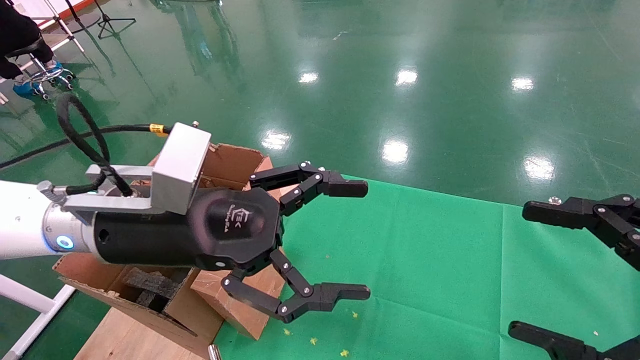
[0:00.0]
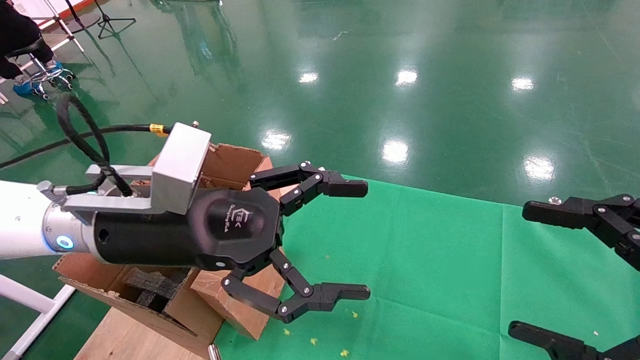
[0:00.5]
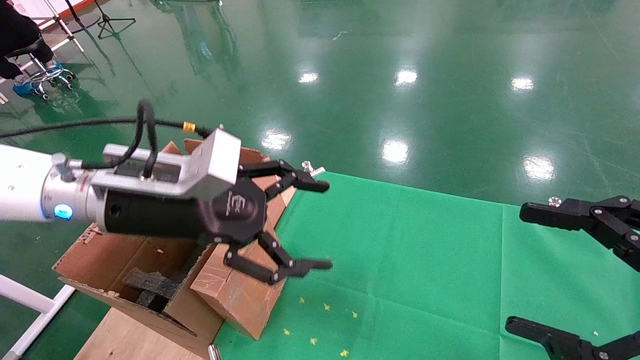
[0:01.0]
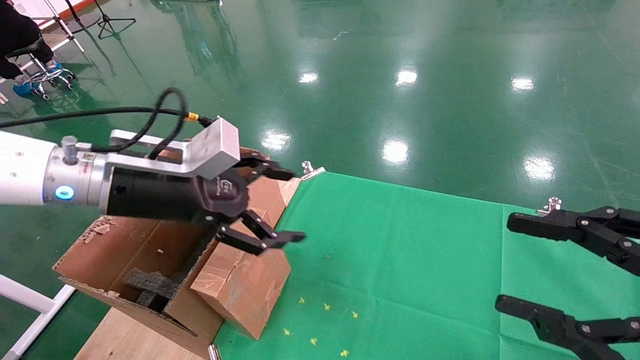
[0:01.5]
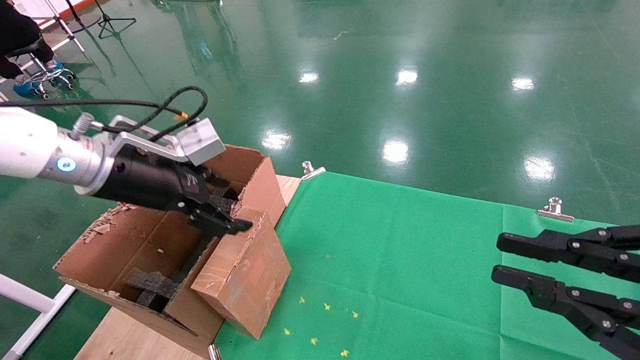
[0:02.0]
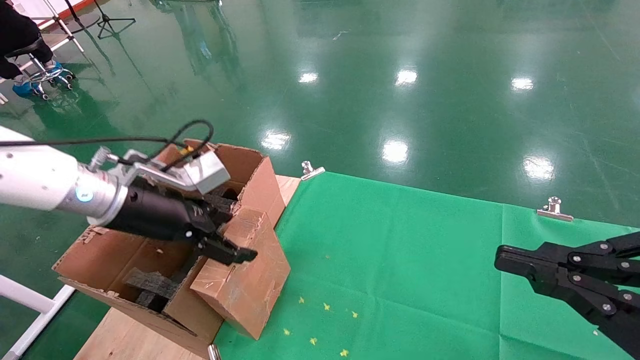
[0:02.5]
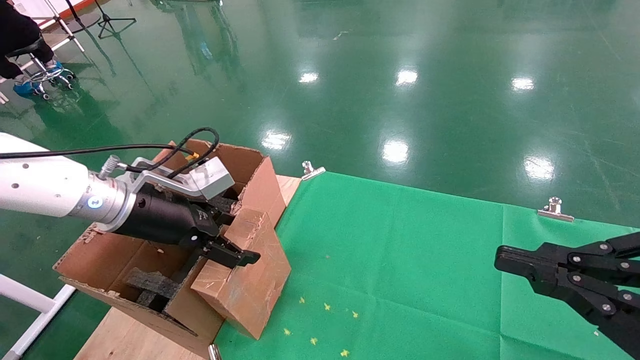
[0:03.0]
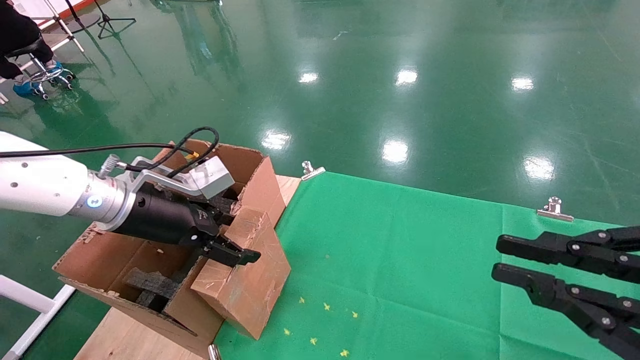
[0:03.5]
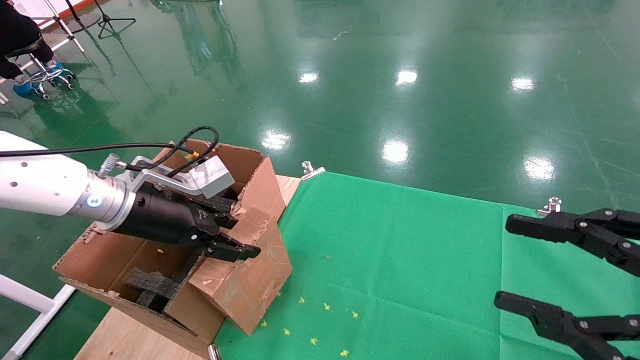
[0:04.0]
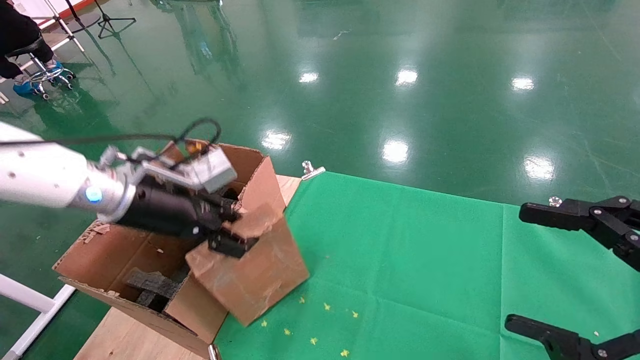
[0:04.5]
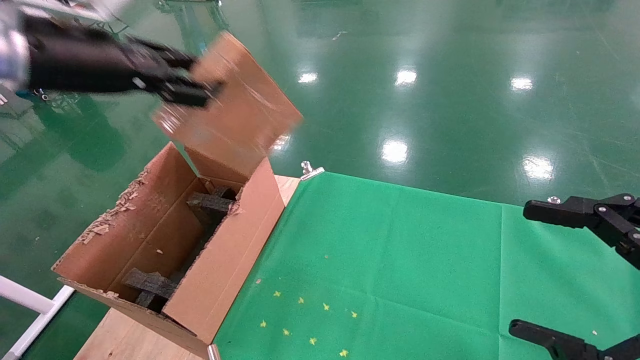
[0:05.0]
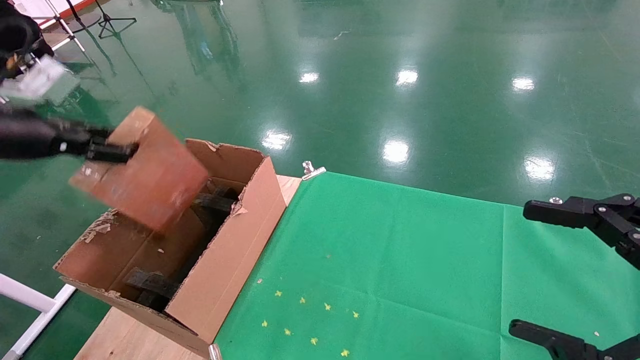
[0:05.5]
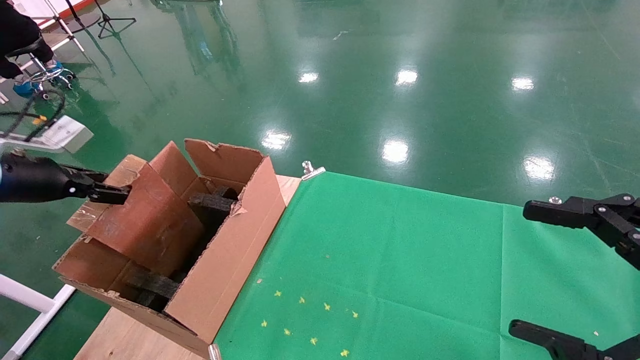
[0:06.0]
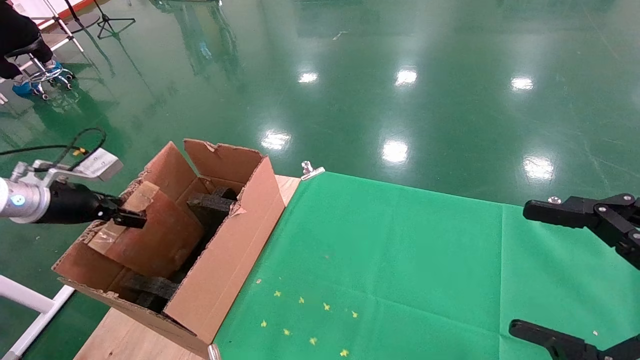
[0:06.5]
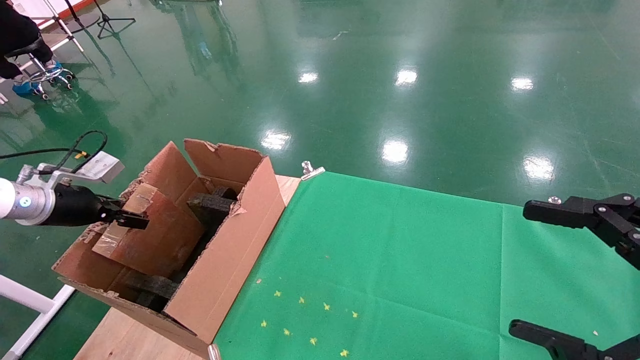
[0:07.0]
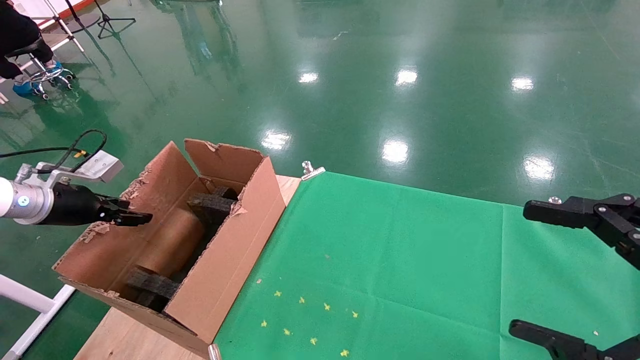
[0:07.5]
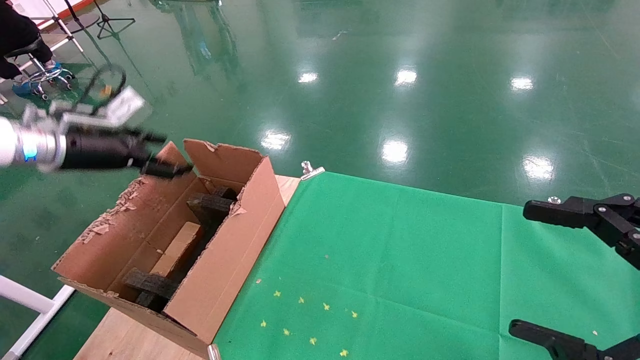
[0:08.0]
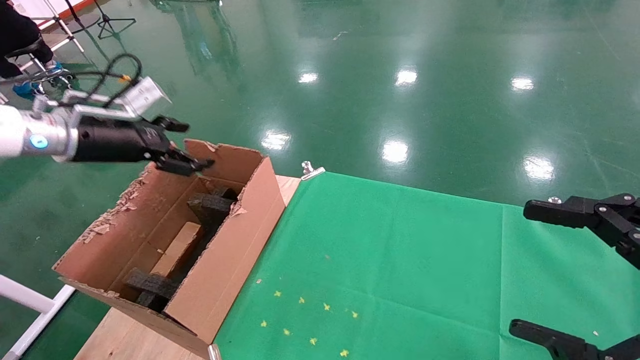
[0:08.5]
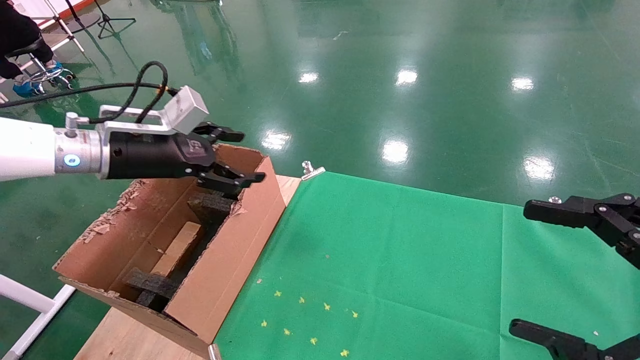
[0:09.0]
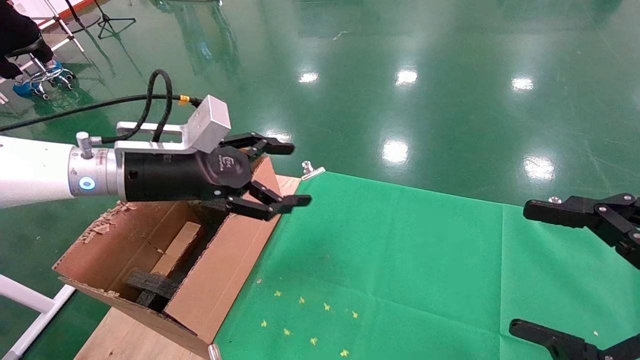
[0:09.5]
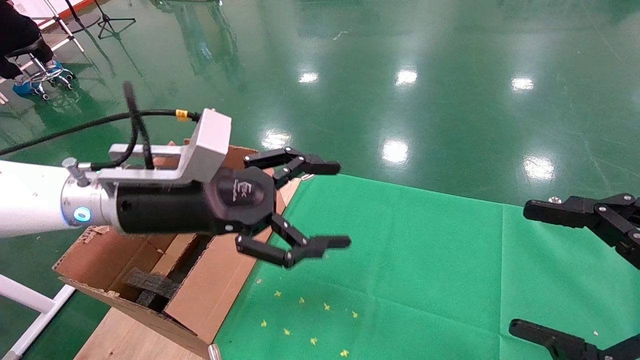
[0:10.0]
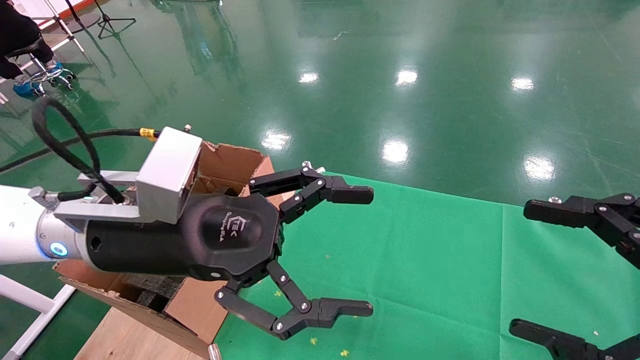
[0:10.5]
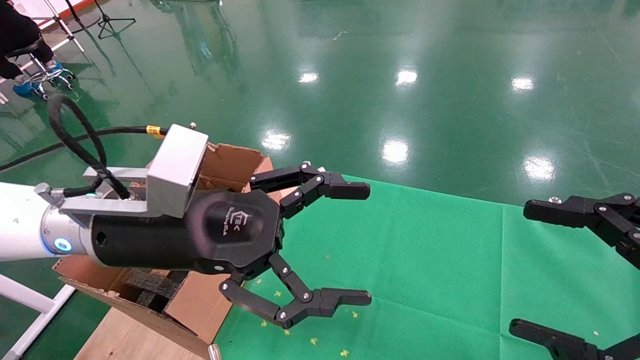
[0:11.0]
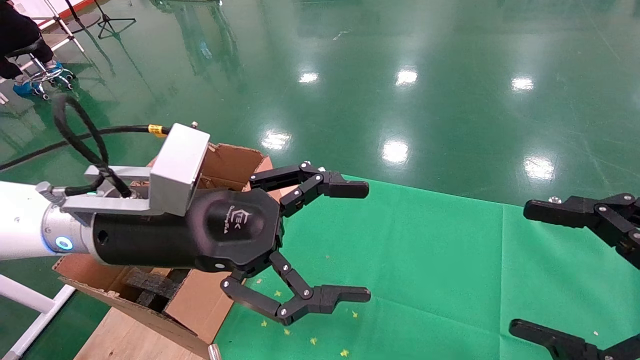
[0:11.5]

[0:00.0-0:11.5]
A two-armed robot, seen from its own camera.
Task of the whole recording: using a robotic arm to pick up a cardboard box and palace it the carton.
Step, 0:01.0 to 0:04.5: Pick up the mouse and the power cord paper box.
Step, 0:05.0 to 0:07.5: Place the mouse and the power cord paper box into the container.
0:00.0 to 0:02.0: The right gripper closes its fingers, while the left gripper moves to the left and forward, about 10 cm.
0:02.0 to 0:04.0: The left gripper moves about 5 cm, and closes.
0:04.0 to 0:06.0: The left gripper heads to the left, covering some 20 cm, and closes. Meanwhile the right gripper opens up.
0:06.0 to 0:07.5: The left gripper goes roughly 5 cm downward.
0:07.5 to 0:09.5: The left gripper heads to the right, covering approximately 25 cm, and opens up.
0:09.5 to 0:11.5: The left gripper shifts roughly 10 cm backward and to the right.

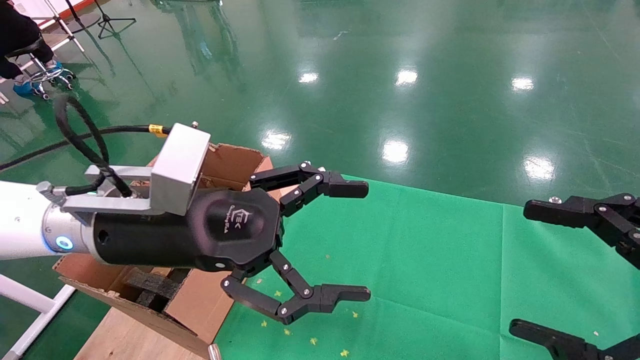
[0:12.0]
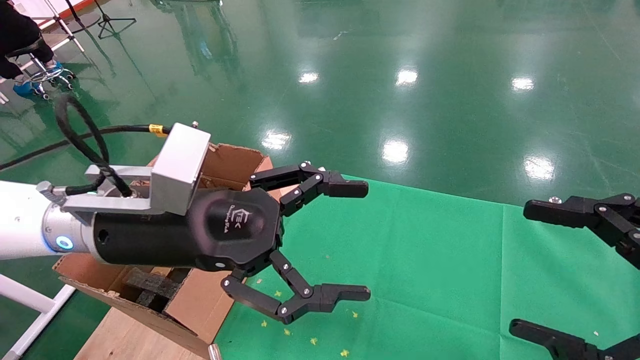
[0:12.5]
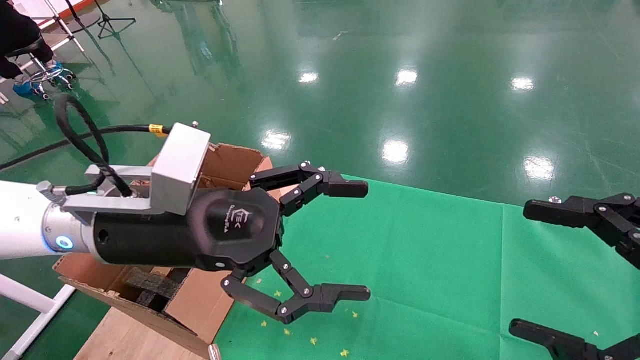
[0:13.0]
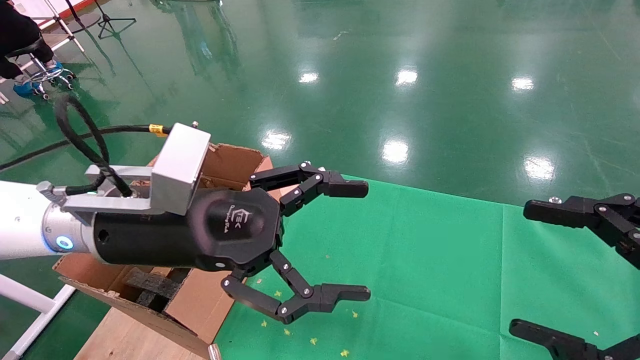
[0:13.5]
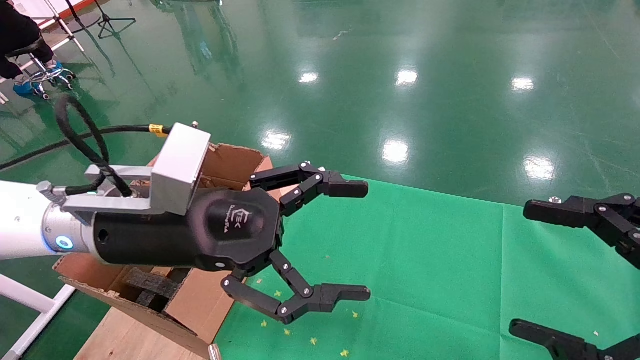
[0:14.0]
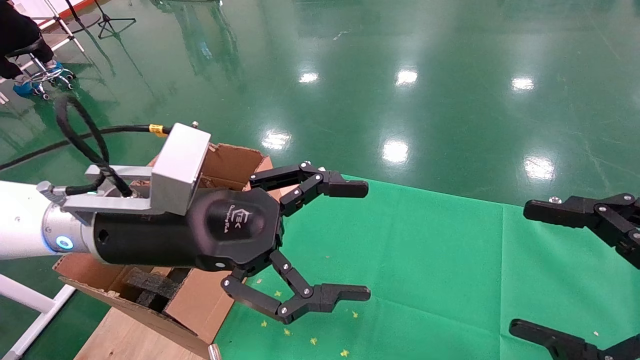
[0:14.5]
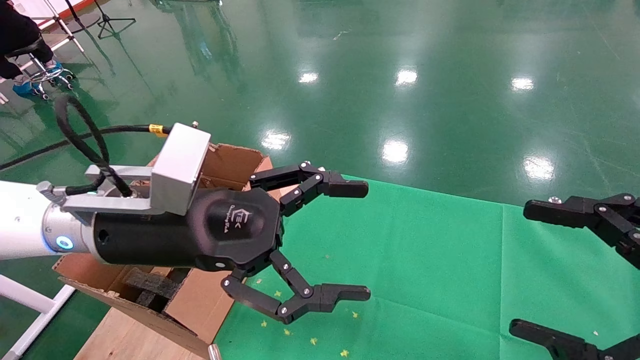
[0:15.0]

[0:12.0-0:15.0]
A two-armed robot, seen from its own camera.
Task of the whole recording: using a robotic arm to pick up a cardboard box and palace it the carton.
0:12.0 to 0:15.0: Both grippers stay about where they are.

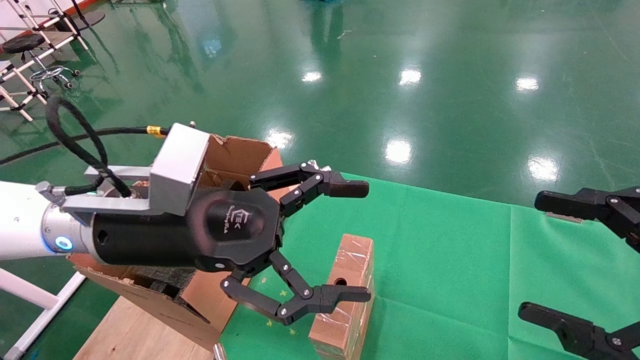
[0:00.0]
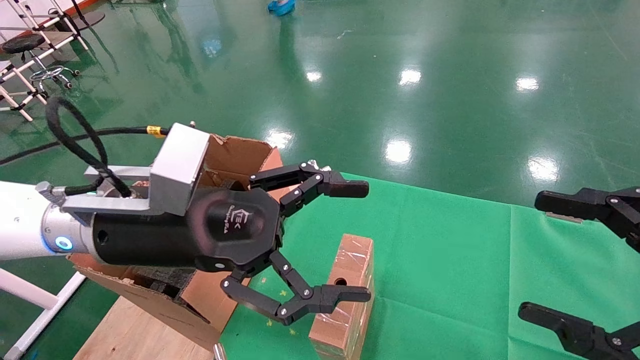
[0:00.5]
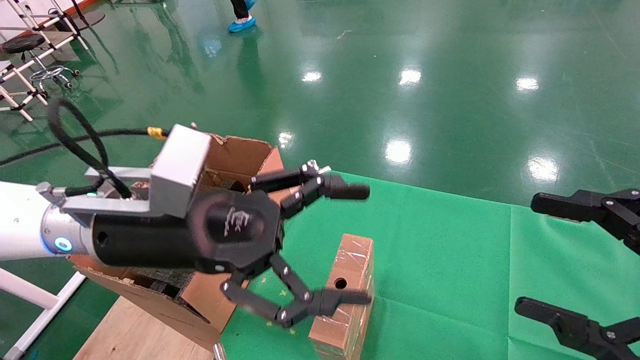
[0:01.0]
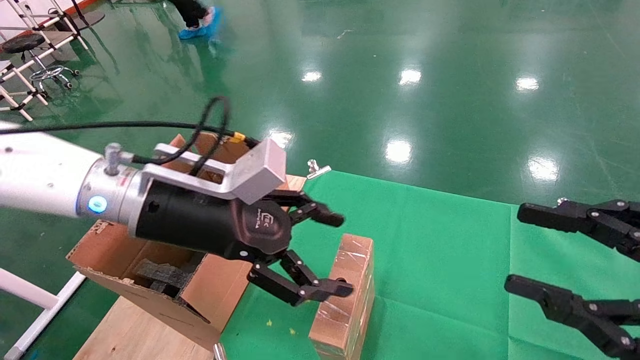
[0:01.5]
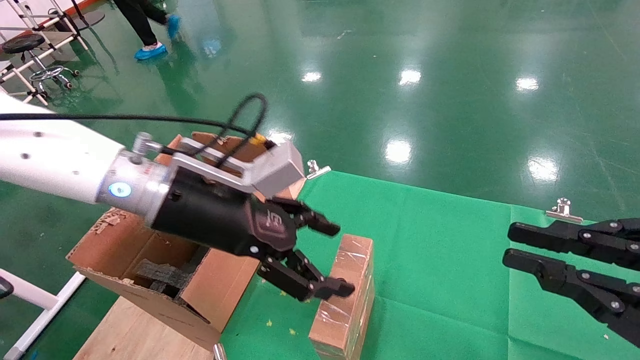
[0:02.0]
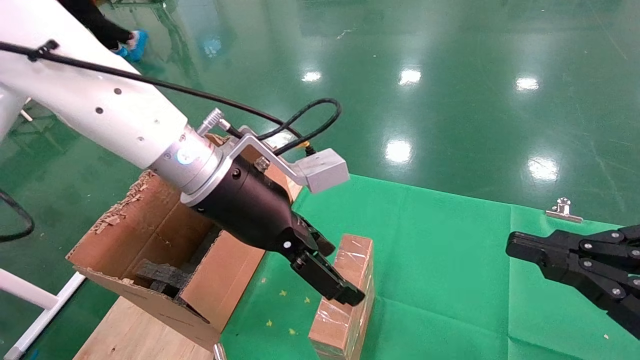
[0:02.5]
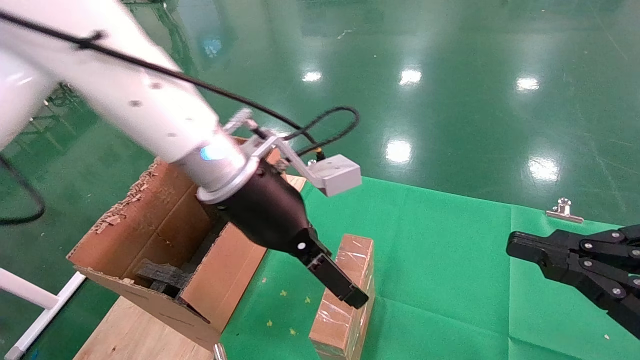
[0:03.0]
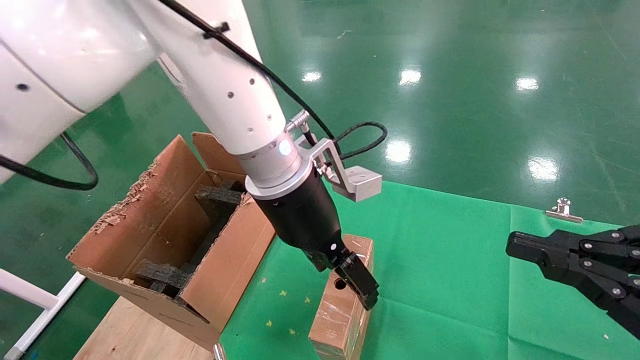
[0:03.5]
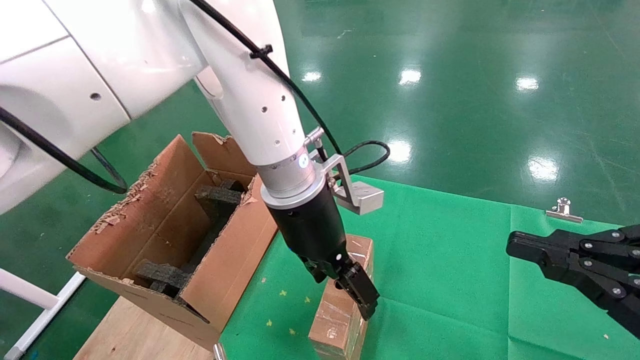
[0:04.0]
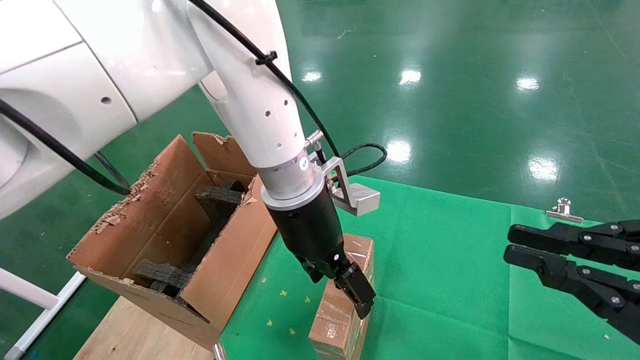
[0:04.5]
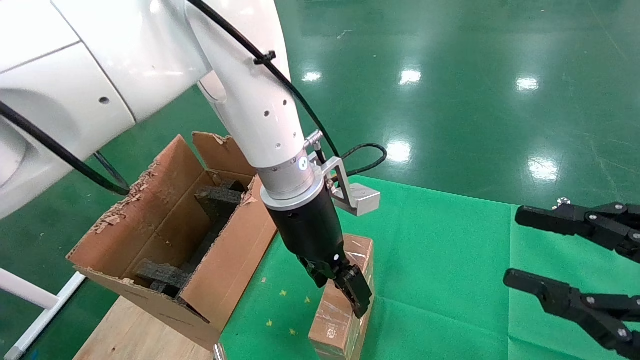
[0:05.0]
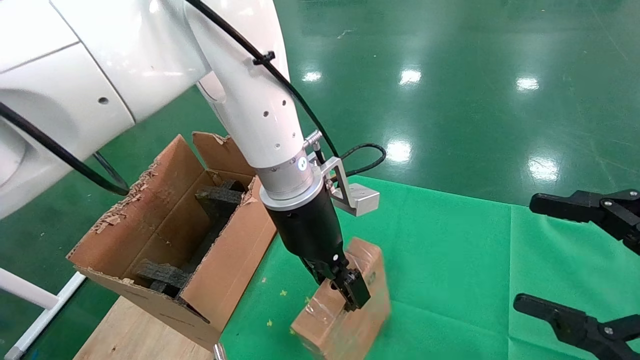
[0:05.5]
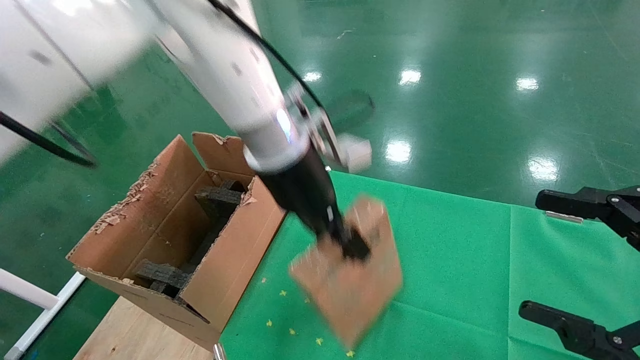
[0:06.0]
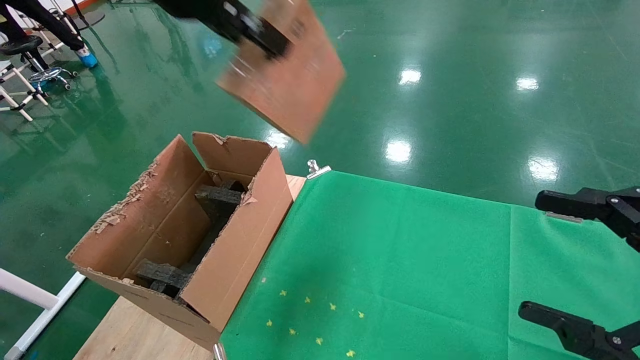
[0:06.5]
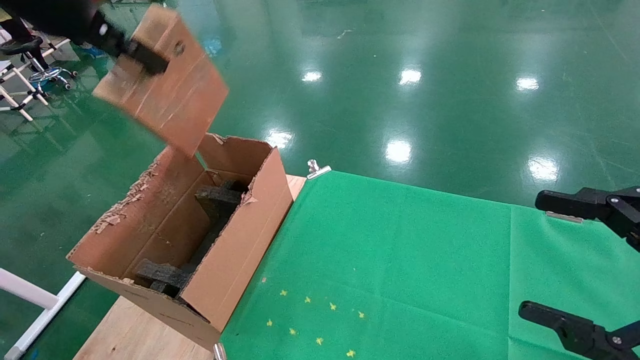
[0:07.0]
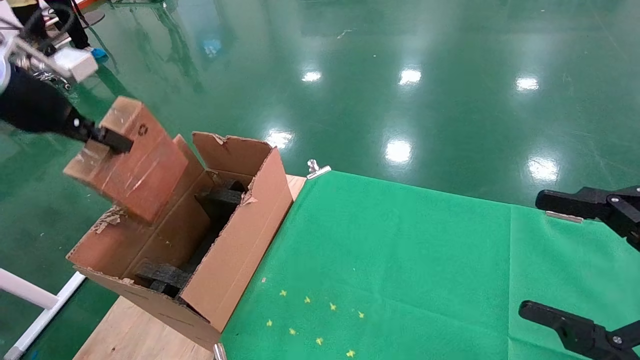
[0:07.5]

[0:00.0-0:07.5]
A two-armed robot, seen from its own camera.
Task of the whole recording: using a robotic arm to pick up a cardboard box and palace it the carton.
Step, 0:01.5 to 0:05.5: Pick up the mouse and the power cord paper box.
0:00.0 to 0:02.0: The left gripper goes about 5 cm forward. Meanwhile the right gripper closes its fingers.
0:02.0 to 0:04.0: The left gripper moves to the right and forward, approximately 15 cm.
0:04.0 to 0:05.5: The right gripper opens. The left gripper closes its fingers.
0:05.5 to 0:07.5: The left gripper shifts about 40 cm to the left, and closes up.
